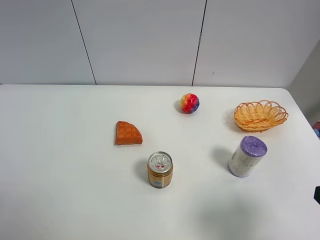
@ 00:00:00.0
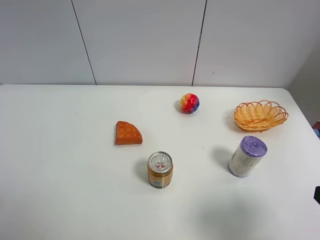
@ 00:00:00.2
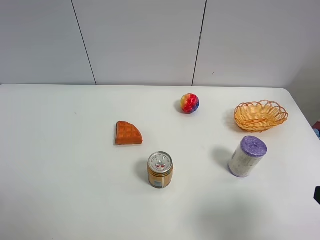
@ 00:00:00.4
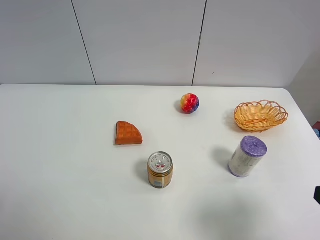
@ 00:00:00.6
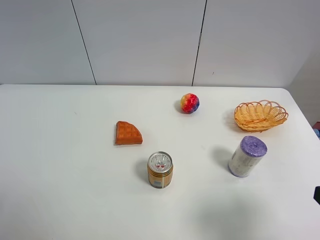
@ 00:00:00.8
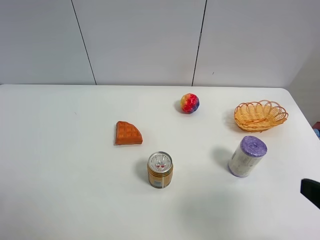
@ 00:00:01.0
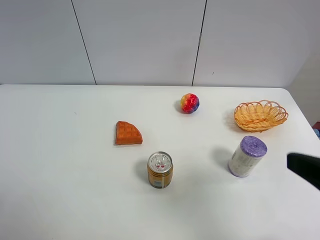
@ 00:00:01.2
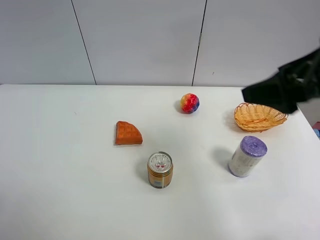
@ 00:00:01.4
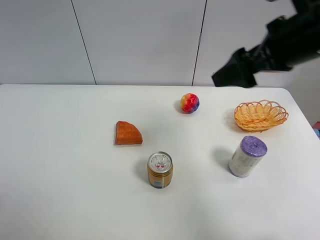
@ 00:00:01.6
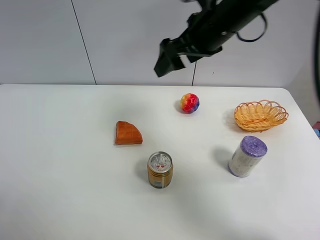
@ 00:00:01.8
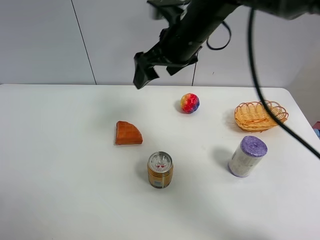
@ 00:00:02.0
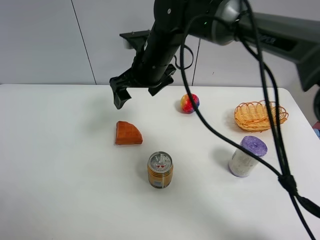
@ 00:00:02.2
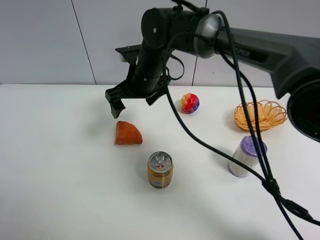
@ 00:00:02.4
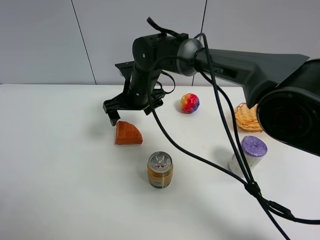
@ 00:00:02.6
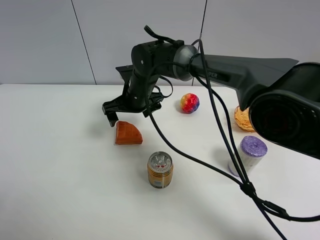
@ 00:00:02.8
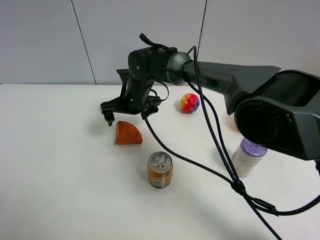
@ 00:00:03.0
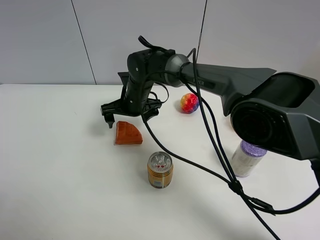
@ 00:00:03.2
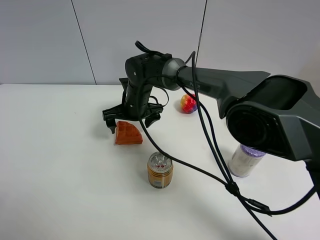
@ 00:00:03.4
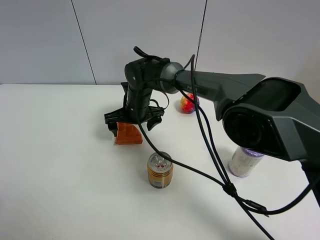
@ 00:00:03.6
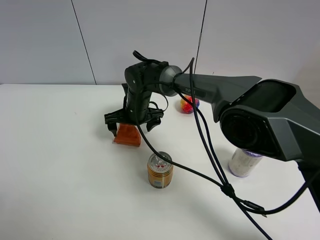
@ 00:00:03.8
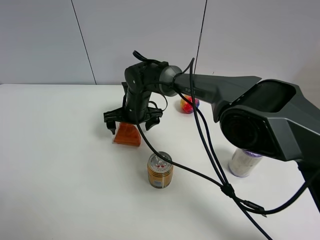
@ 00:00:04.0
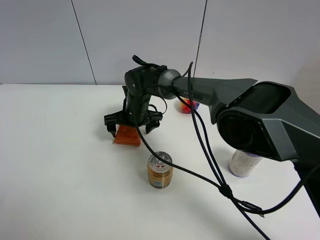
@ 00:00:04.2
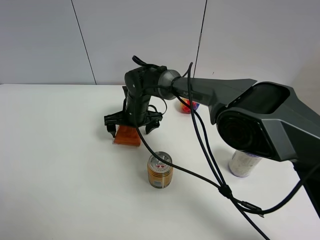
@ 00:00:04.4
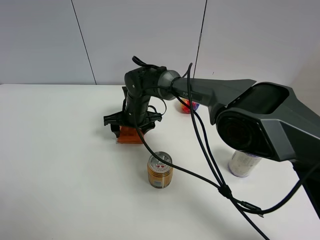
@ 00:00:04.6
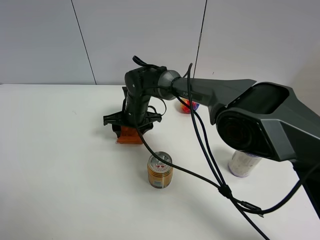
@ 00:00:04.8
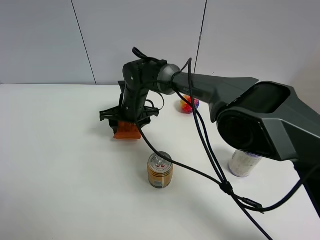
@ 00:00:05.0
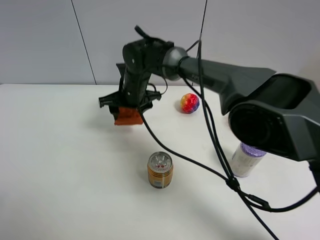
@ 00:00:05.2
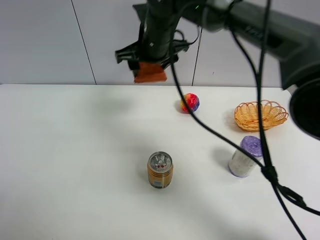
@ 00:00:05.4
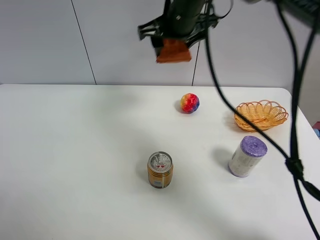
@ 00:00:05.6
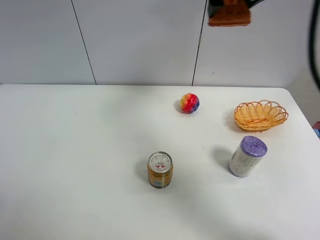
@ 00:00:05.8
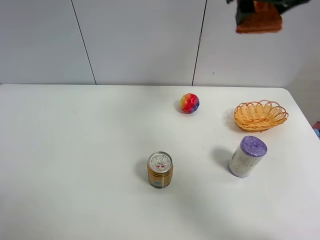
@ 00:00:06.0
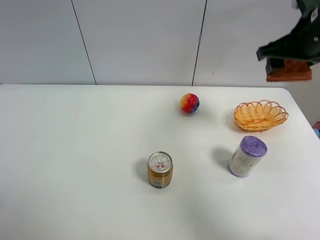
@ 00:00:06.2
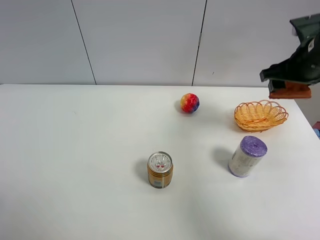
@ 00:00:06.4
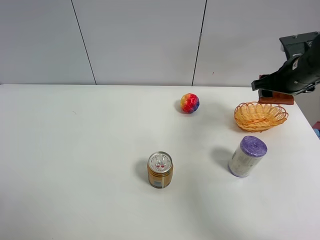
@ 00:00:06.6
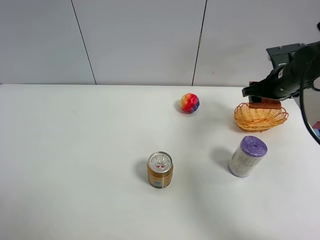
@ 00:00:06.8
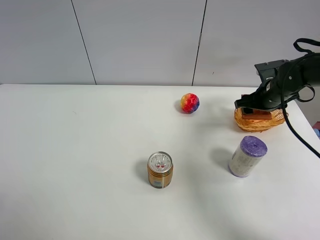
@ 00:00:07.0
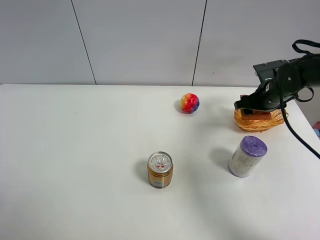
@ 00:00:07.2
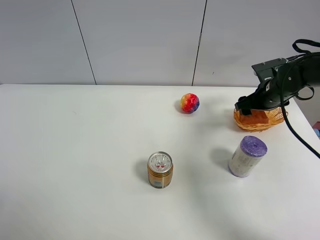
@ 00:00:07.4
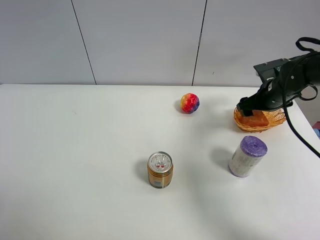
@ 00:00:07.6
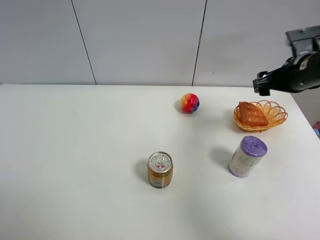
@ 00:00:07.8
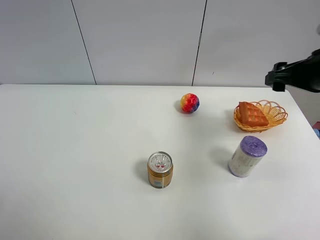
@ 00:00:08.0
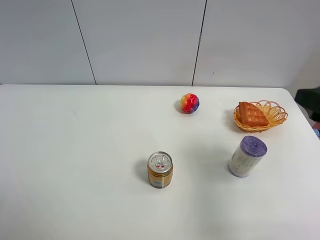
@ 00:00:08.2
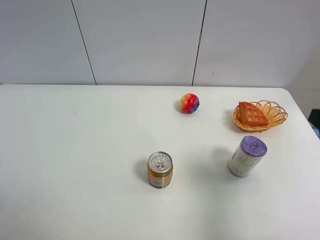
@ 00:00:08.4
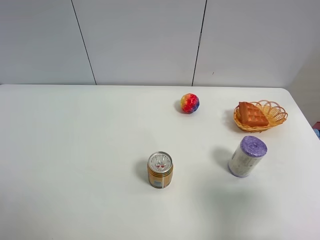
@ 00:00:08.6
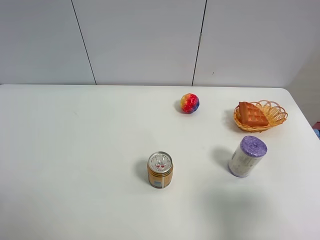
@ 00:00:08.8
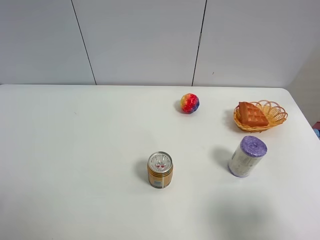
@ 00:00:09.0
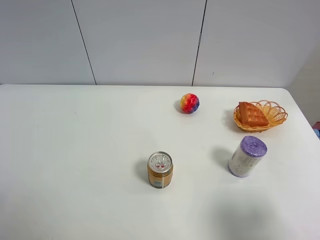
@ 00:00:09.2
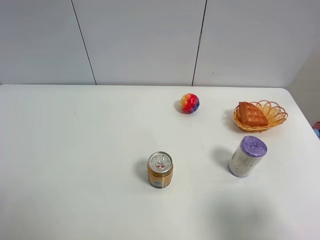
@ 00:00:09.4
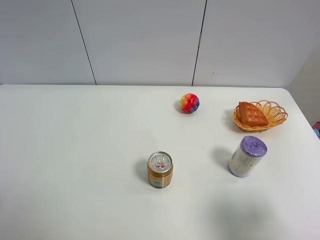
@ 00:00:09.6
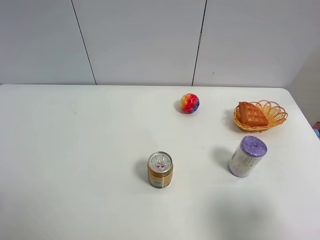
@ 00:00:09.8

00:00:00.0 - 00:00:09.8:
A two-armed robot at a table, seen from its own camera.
Task of the whole recording: Put the bakery in the basket.
Step, 00:00:00.0 - 00:00:04.6: Grasp the bread with right gripper.
Step, 00:00:04.8 - 00:00:07.8: Place the bread in the basket with right gripper.
00:00:00.0 - 00:00:01.4: The right gripper is displaced forward and upward by roughly 20 cm.
00:00:01.4 - 00:00:02.8: The right gripper shifts approximately 40 cm to the left, downward and forward.
00:00:02.8 - 00:00:04.2: The right gripper is displaced downward by approximately 5 cm.
00:00:04.2 - 00:00:05.6: The right gripper heads upward and to the right, covering some 30 cm, and closes up.
00:00:05.6 - 00:00:07.0: The right gripper heads to the right and downward, covering approximately 30 cm.
00:00:07.0 - 00:00:08.4: The right gripper is displaced backward and upward by approximately 30 cm, and opens its fingers.
00:00:08.4 - 00:00:09.8: The right gripper shifts approximately 10 cm backward.
